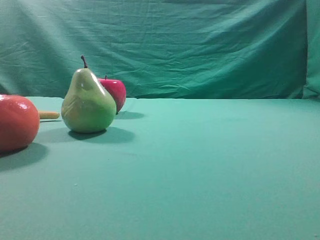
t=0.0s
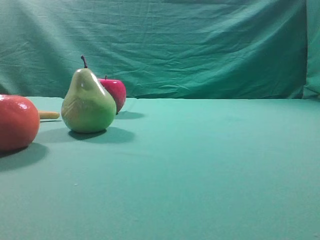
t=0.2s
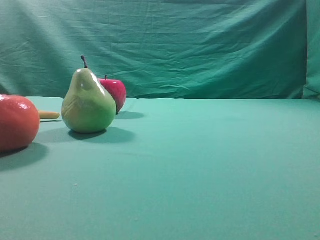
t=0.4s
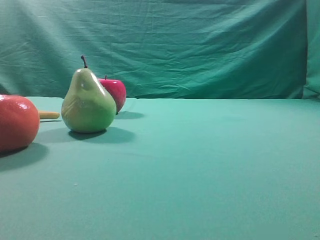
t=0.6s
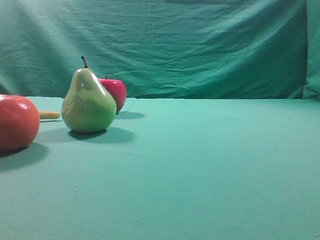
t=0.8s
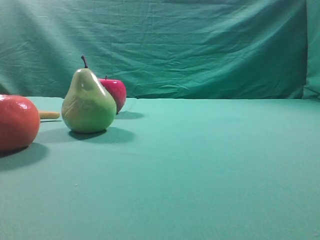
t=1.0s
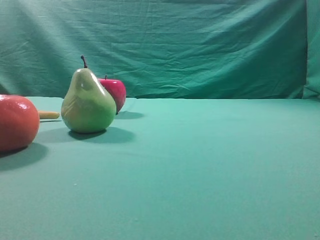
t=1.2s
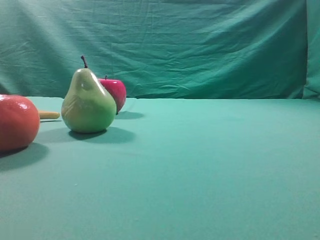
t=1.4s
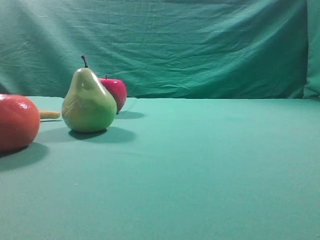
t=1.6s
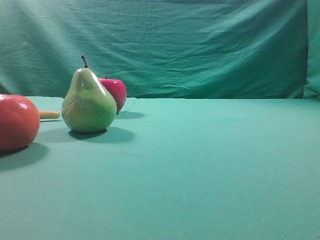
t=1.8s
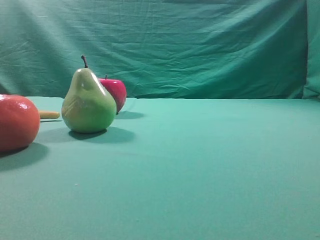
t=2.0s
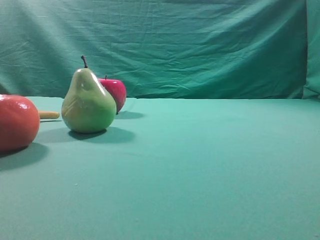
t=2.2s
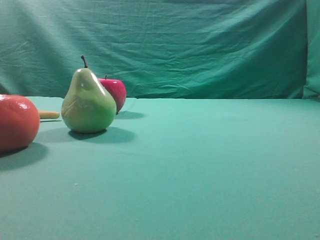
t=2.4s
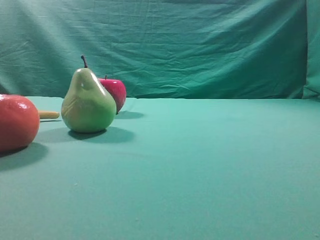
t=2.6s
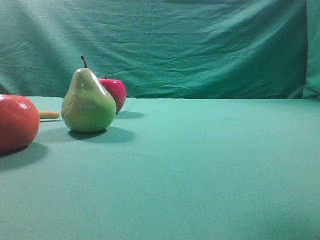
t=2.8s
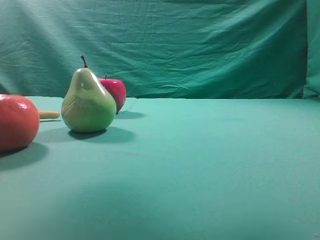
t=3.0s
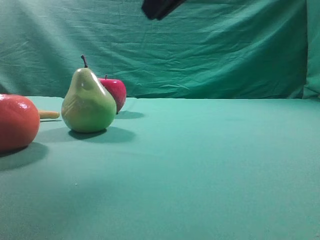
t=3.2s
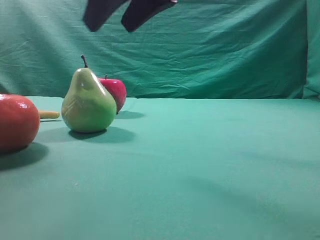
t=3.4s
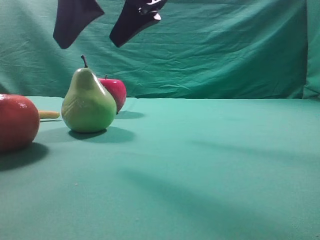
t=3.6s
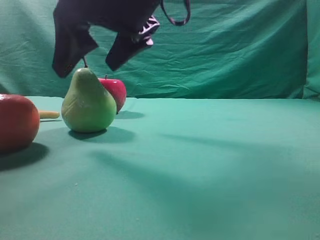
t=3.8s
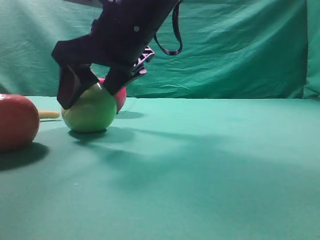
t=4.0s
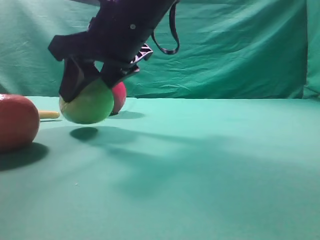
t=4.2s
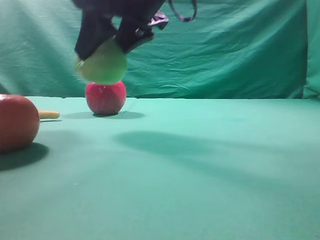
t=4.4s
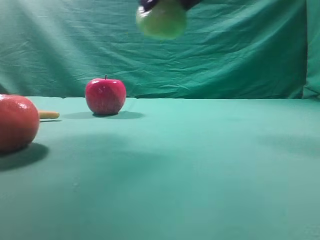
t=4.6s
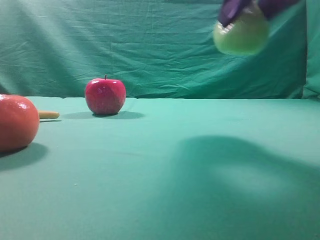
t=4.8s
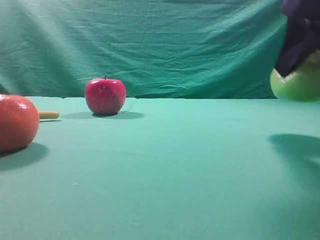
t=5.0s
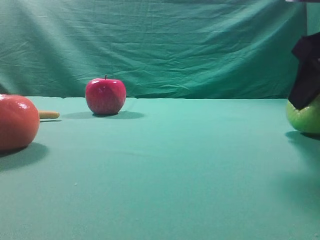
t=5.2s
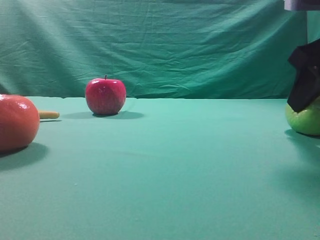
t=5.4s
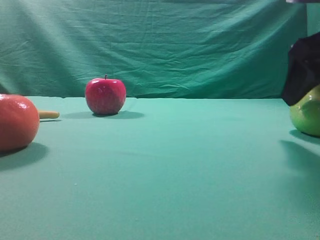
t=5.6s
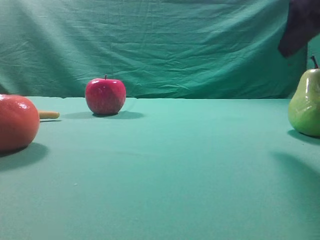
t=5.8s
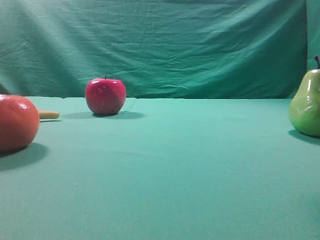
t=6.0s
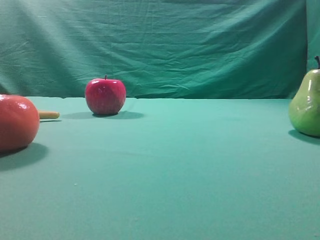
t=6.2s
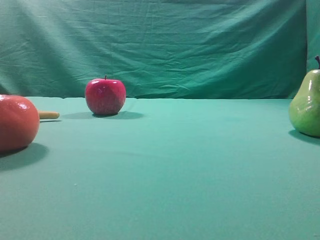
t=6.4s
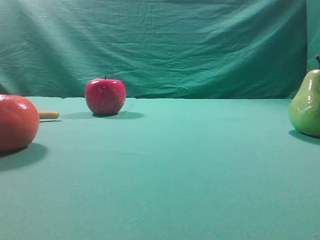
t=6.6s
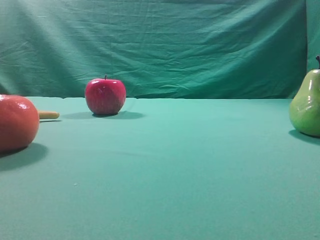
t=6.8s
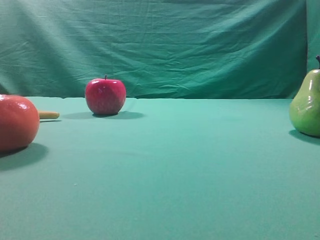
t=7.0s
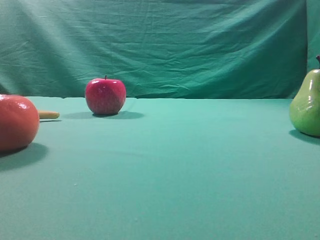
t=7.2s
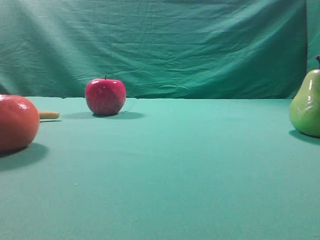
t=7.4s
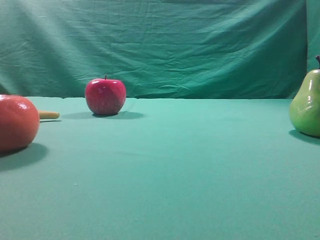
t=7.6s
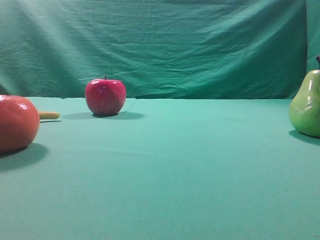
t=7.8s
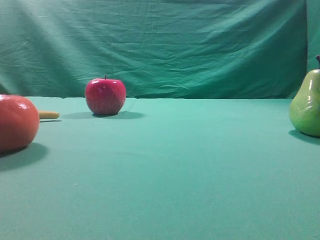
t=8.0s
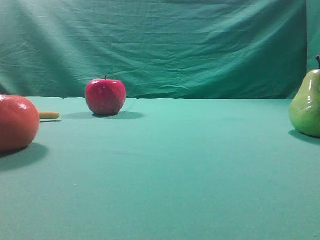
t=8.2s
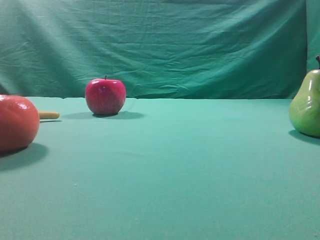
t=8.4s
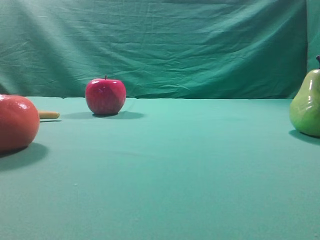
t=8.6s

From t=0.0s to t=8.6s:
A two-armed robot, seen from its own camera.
Task of the whole recording: Grasp the pear and place it on one side of the table.
Step, from t=0.0s to t=4.2s: Grasp the high-fiber fruit.
Step, from t=4.4s to t=5.8s: Place it on the right side of the table.

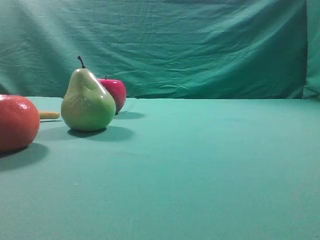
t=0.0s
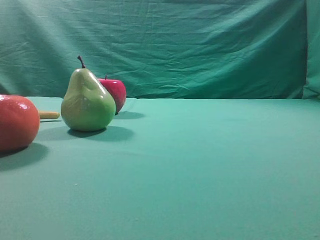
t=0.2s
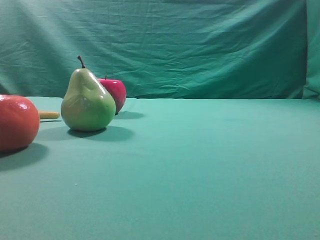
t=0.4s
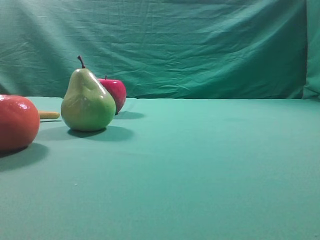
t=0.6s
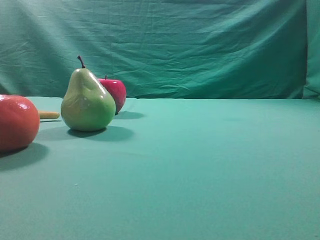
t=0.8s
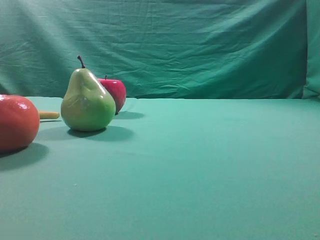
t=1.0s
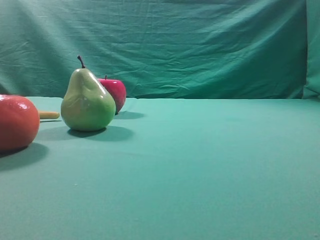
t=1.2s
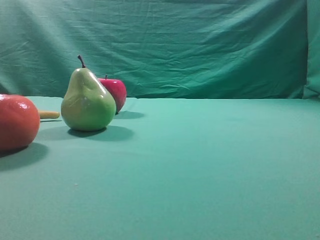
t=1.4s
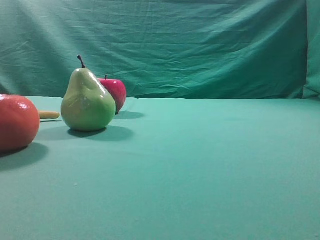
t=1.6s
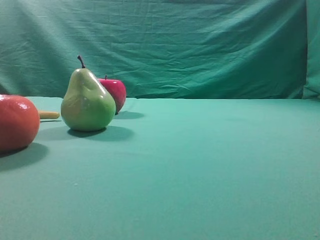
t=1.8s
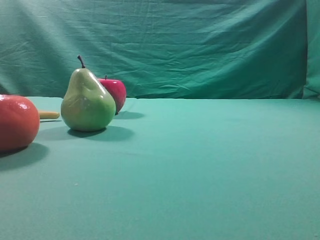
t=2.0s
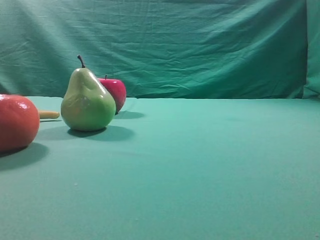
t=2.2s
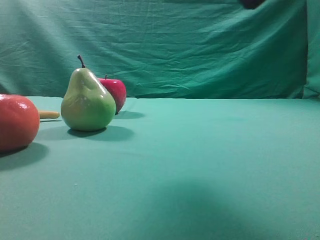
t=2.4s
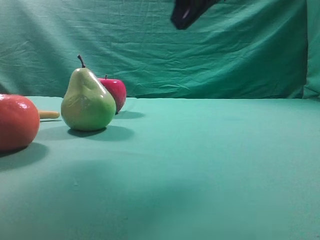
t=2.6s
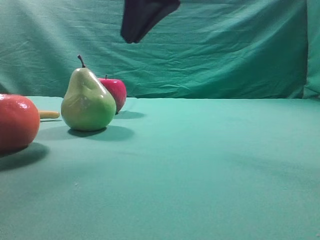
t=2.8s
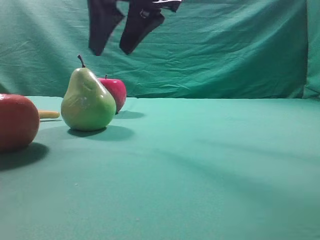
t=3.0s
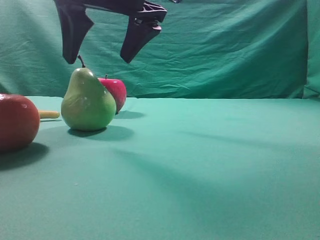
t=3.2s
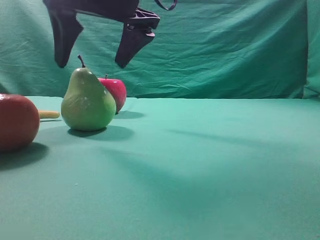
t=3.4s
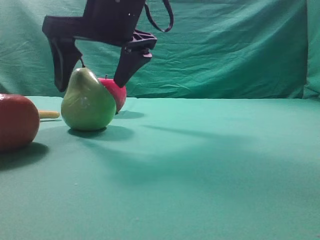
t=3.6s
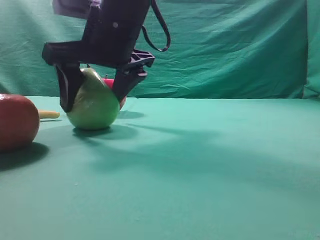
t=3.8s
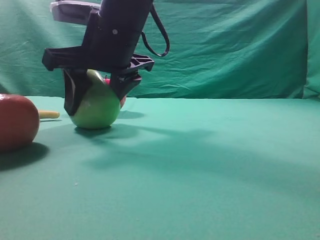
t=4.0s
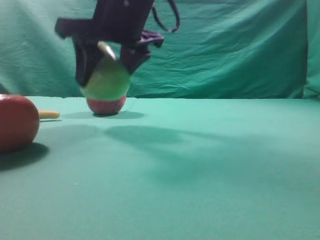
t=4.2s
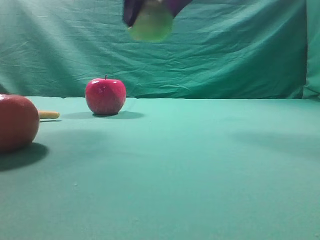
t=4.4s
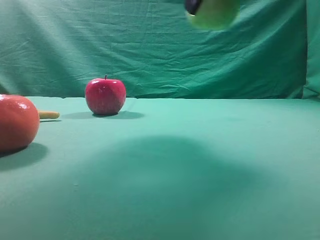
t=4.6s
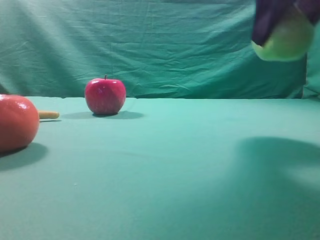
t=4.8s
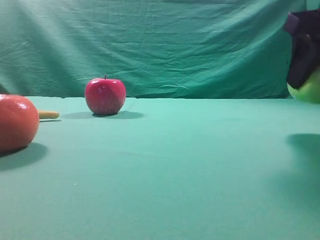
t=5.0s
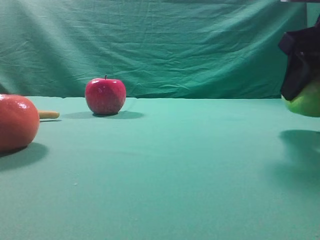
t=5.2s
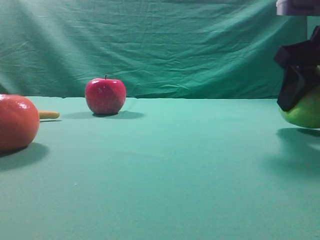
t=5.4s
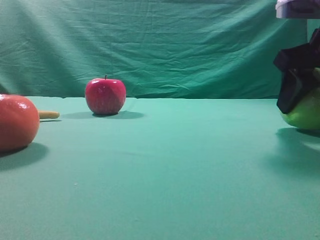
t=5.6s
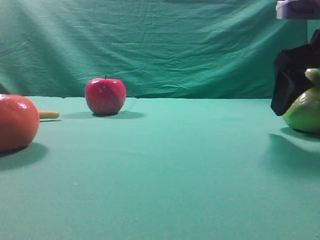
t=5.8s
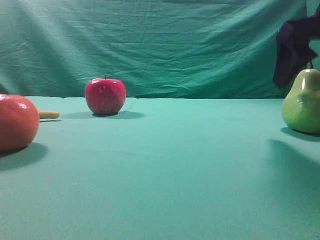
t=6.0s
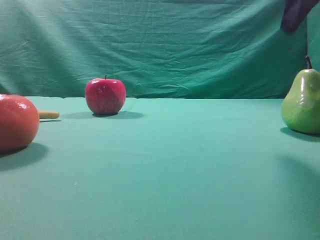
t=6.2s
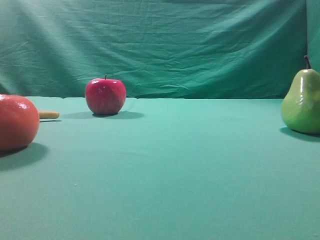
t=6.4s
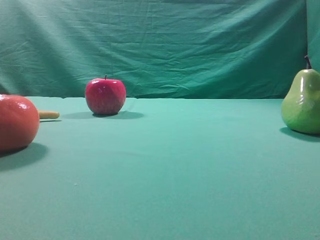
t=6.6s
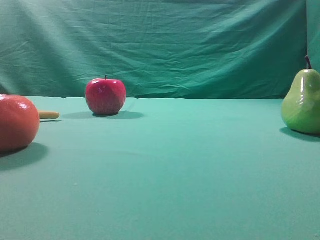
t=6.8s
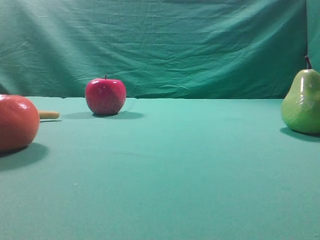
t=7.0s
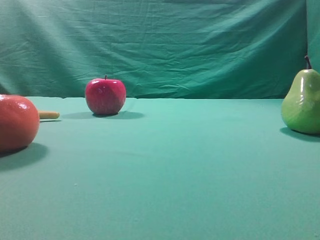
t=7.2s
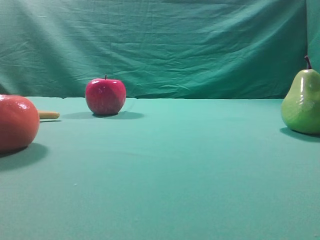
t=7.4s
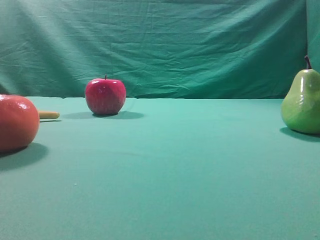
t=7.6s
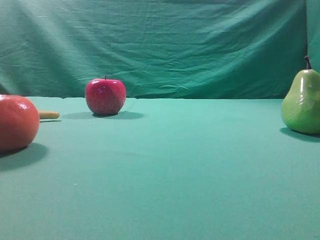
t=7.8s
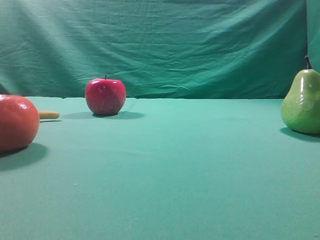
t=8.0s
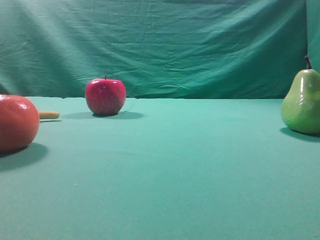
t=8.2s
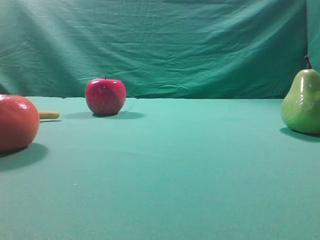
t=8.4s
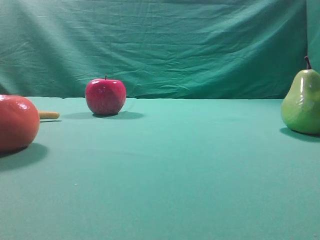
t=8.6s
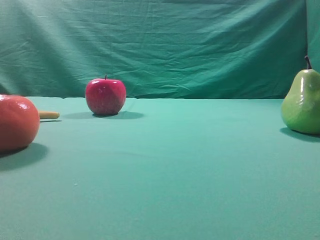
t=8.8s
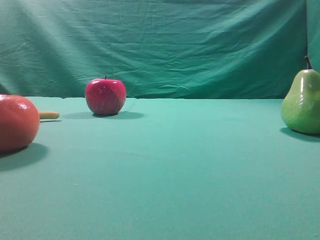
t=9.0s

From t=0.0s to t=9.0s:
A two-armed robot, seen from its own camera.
Task of the whole recording: Grasp the pear and place it on one side of the table.
Step, from t=0.0s to t=4.0s: Grasp the high-fiber fruit.
Step, from t=4.2s to t=6.0s: Place it on the right side of the table.
